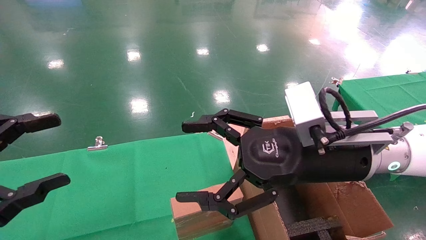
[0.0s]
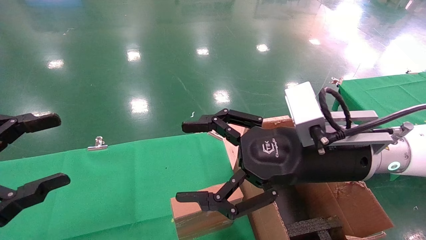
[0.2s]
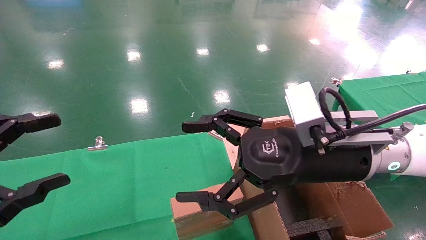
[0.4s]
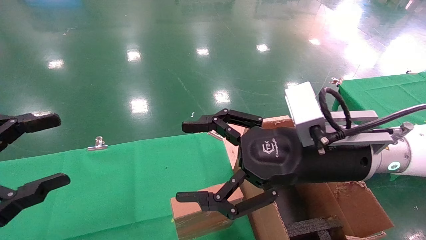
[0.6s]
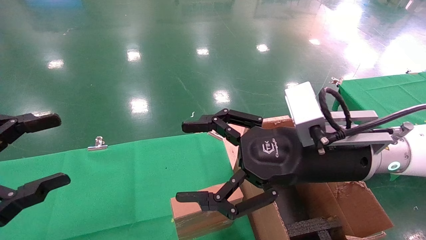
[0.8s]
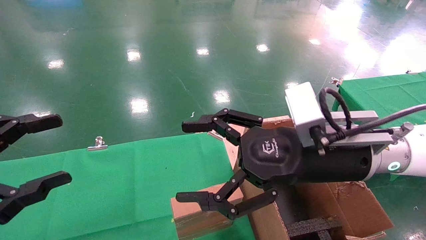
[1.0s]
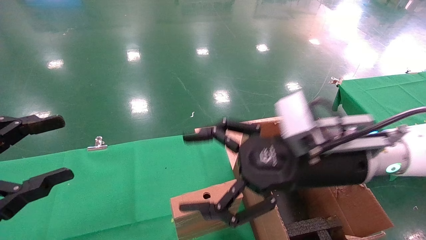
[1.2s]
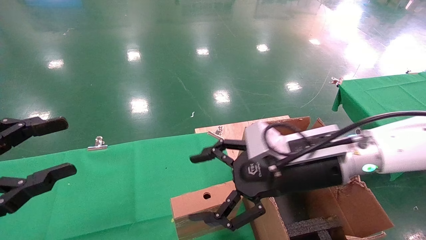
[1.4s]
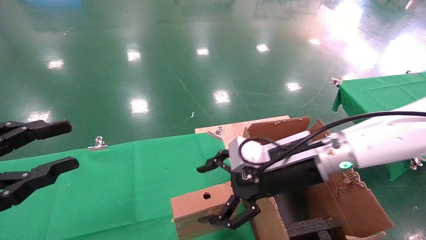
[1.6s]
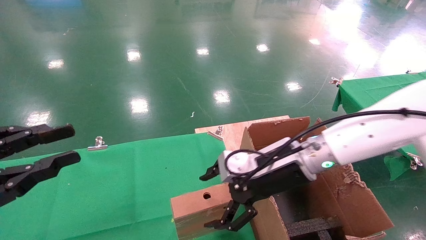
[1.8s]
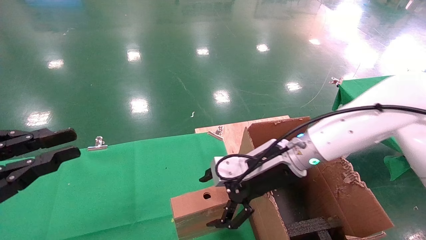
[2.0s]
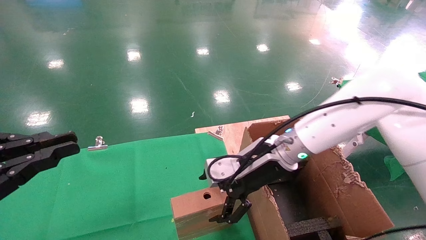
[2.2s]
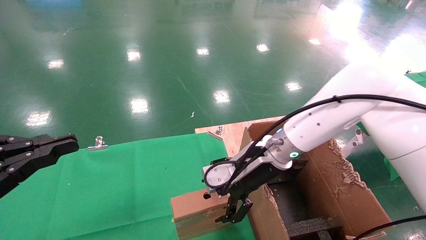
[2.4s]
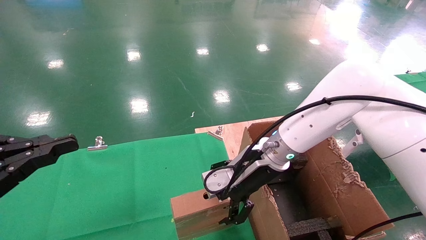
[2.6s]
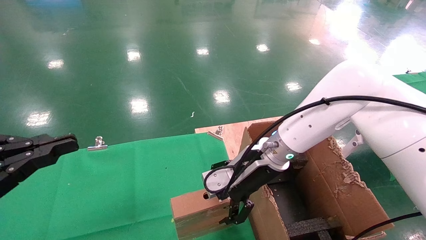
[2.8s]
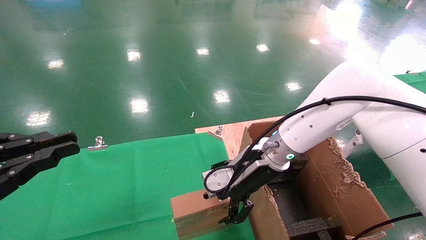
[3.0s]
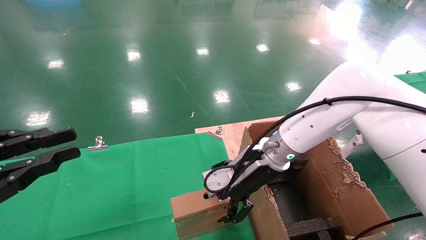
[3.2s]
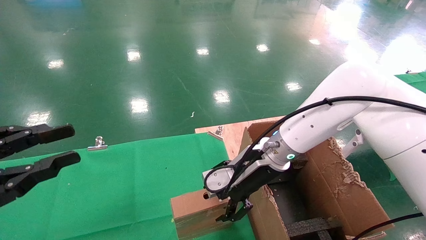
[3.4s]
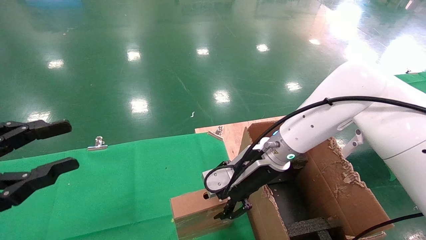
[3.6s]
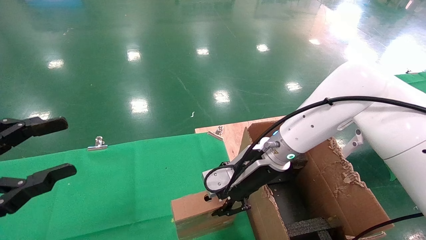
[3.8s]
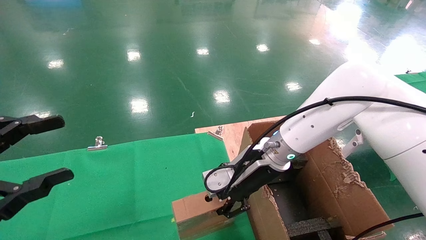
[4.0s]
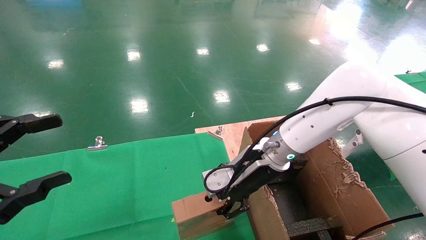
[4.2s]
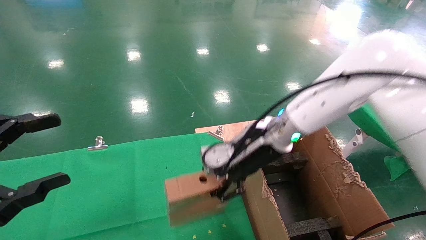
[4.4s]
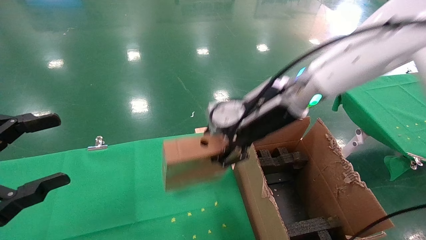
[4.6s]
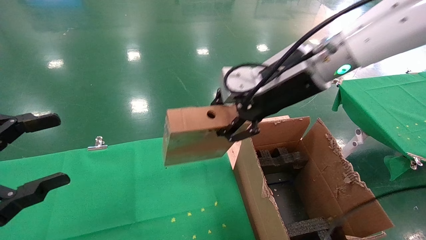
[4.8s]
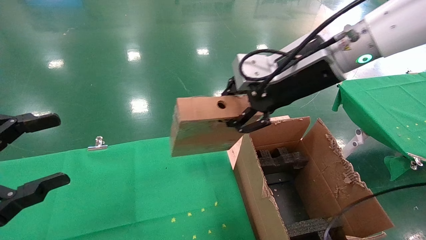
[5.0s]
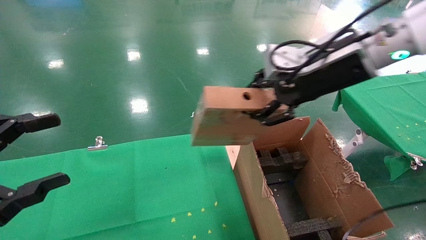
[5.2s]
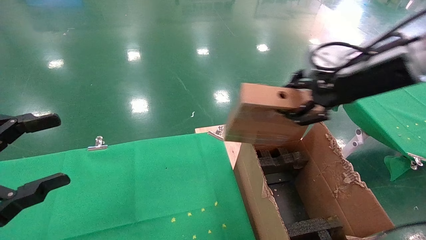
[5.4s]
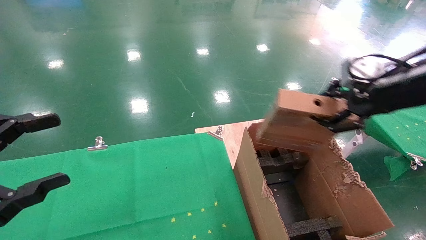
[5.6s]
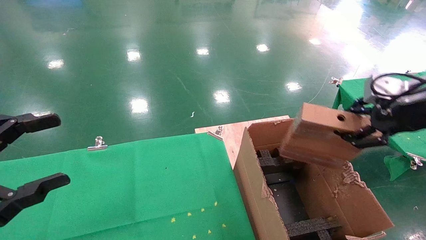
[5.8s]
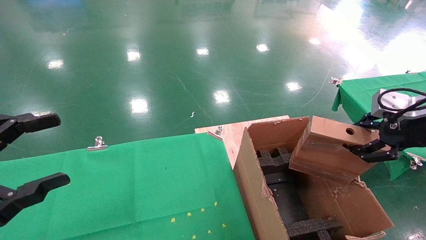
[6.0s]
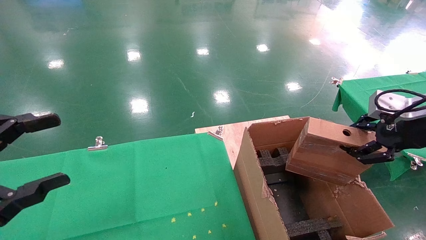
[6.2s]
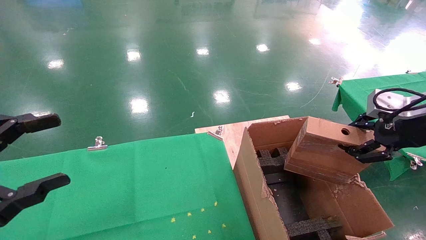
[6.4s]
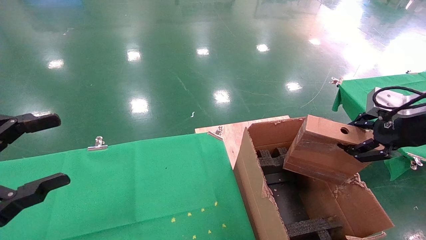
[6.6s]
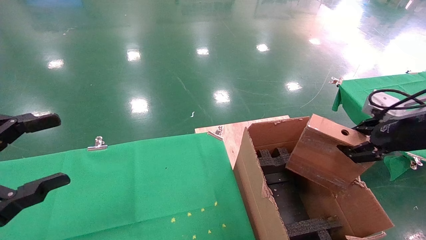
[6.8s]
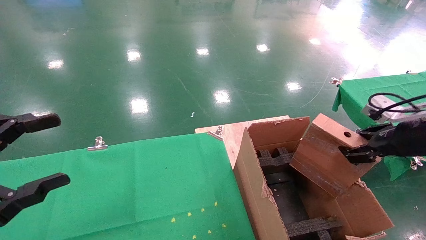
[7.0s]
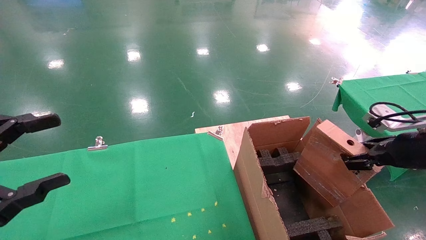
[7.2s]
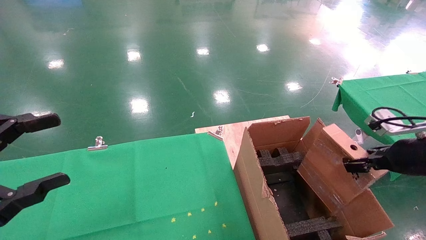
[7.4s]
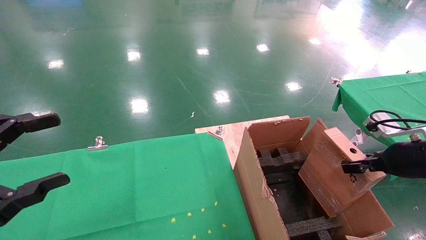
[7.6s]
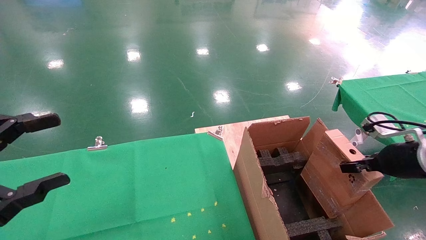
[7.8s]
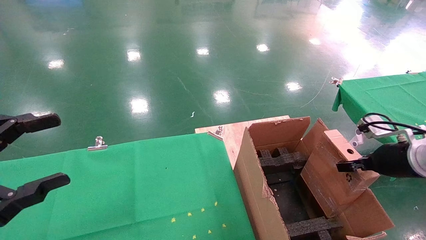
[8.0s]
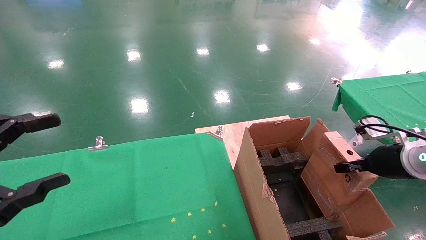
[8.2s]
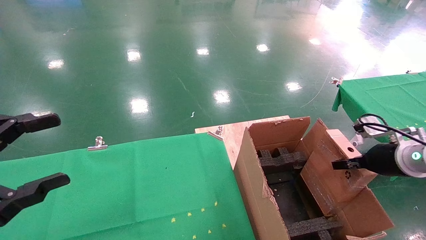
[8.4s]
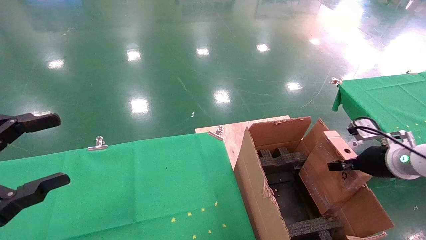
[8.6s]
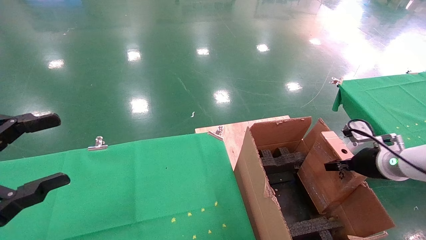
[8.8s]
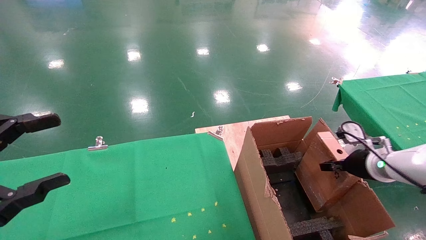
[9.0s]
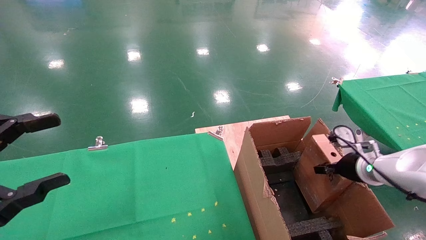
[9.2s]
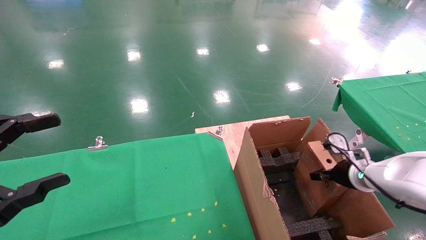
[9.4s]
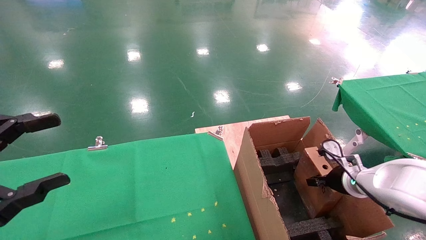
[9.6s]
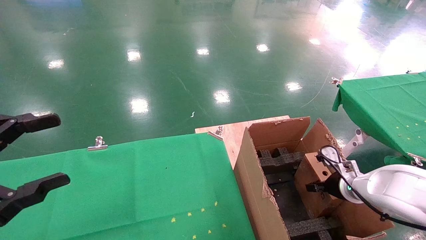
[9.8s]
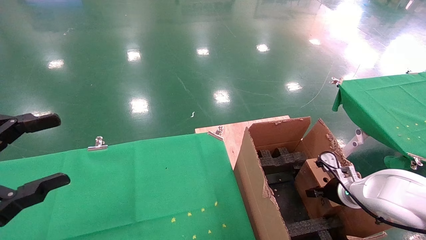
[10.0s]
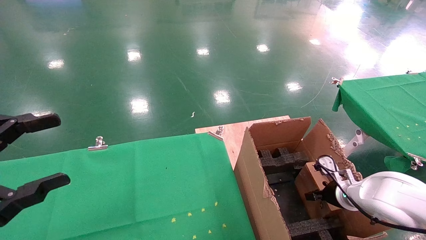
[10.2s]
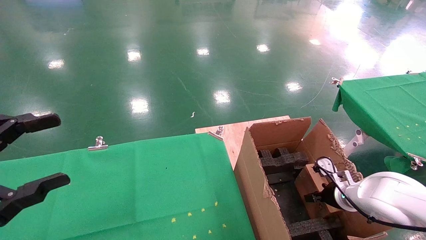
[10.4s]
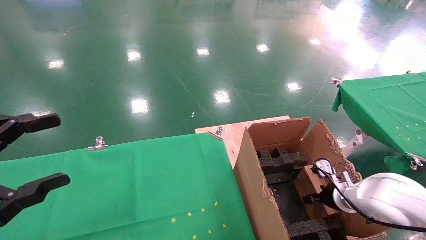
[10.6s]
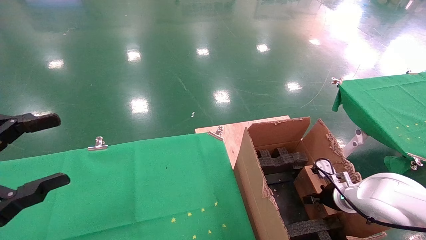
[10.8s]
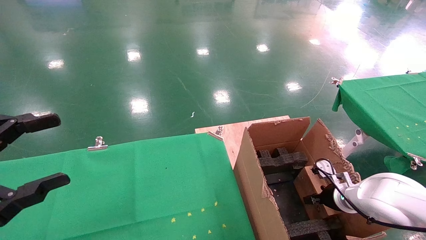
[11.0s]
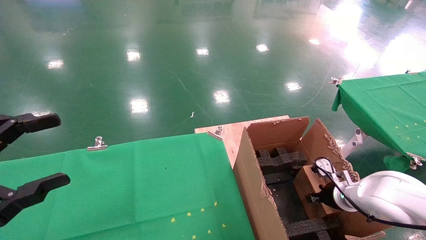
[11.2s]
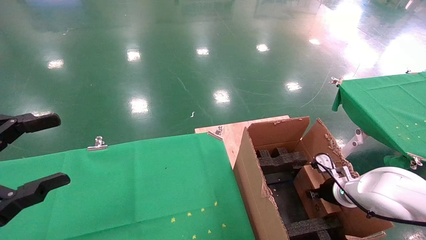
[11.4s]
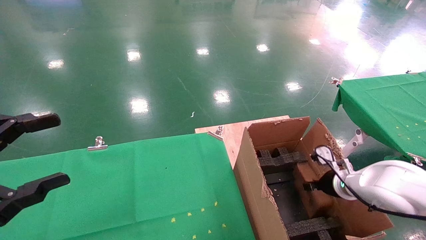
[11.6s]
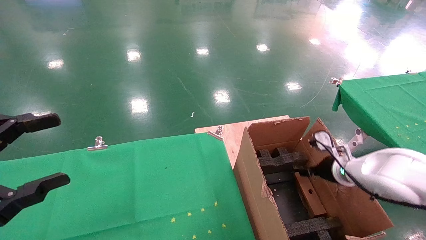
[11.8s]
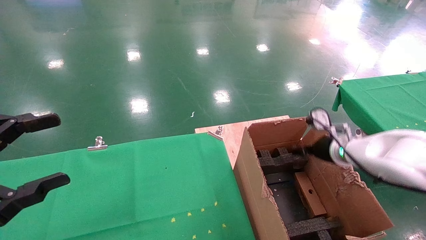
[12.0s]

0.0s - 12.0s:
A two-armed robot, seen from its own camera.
Task of the whole recording: using a robotic arm to pick up a cardboard box and palace it the carton.
Step, 1.0s - 4.0s: Pick up the mouse and the power cord paper box.
Step, 4.2s - 12.0s: Place the mouse and the power cord paper box into the container.
0.0s - 1.6s: The left gripper closes. The right gripper is displaced forward by about 5 cm.
1.6s - 3.0s: The left gripper closes up; the right gripper heads forward, covering some 5 cm.
3.0s - 4.4s: The right gripper is displaced upward by approximately 5 cm, and closes its fingers; the left gripper opens its fingers.
4.4s - 6.0s: The right gripper moves to the right and backward, about 30 cm.
6.0s - 7.6s: The right gripper shifts about 10 cm downward.
7.6s - 9.0s: The right gripper shifts roughly 10 cm forward and downward.
9.0s - 10.4s: The right gripper moves downward, approximately 10 cm.
10.4s - 12.0s: The right gripper heads upward, covering roughly 15 cm, and opens.

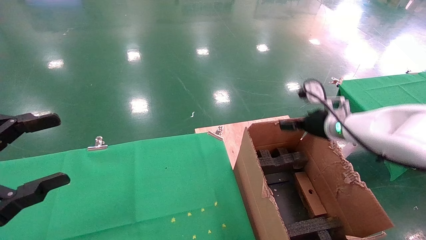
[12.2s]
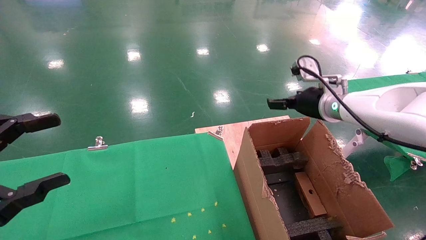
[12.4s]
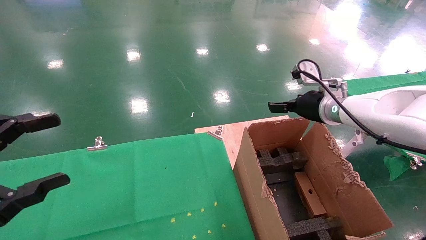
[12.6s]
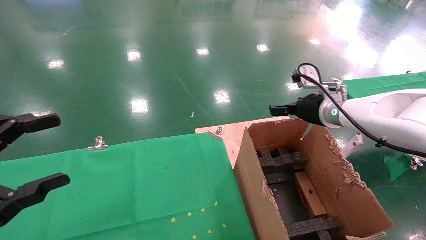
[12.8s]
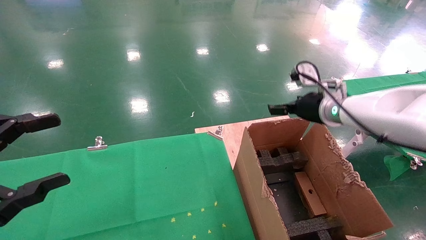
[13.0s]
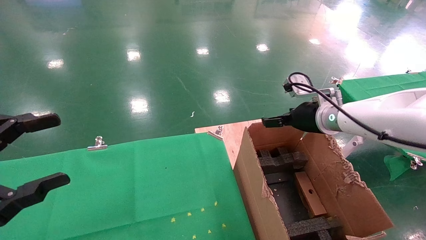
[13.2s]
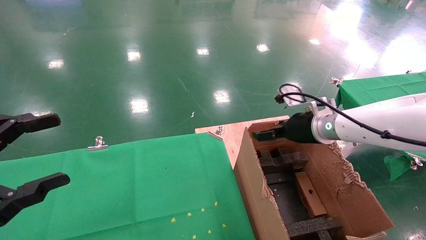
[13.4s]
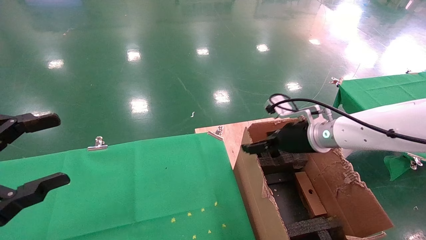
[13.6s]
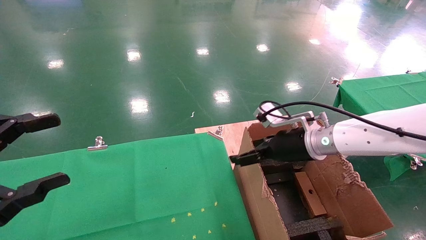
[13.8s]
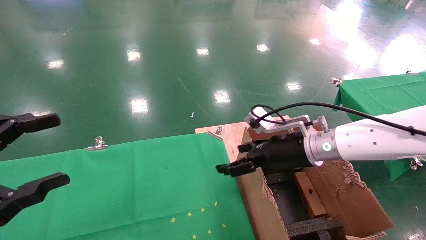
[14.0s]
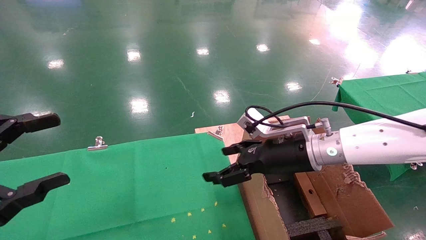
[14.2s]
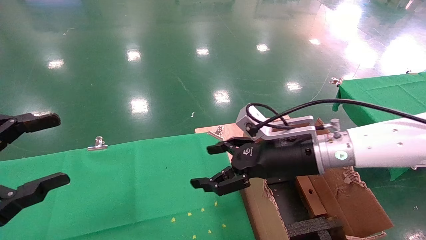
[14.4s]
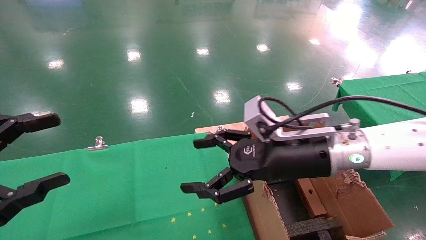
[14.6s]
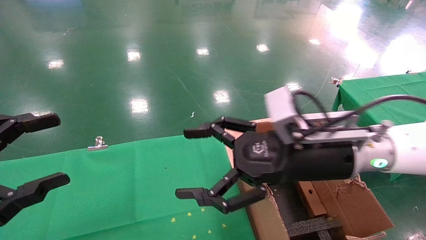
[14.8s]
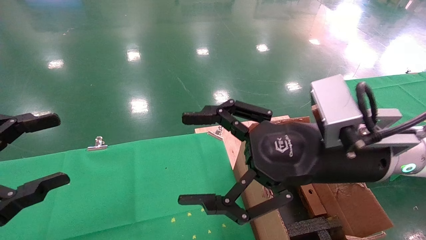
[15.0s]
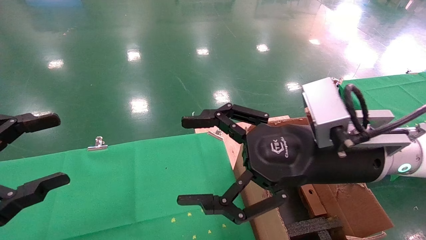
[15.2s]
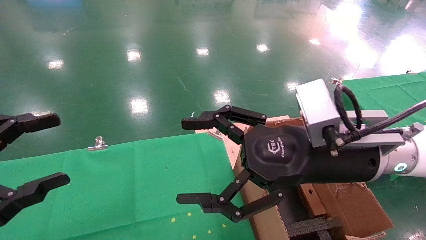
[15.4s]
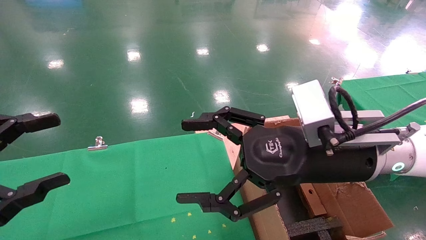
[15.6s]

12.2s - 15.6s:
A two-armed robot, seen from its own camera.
Task of the whole recording: using a robotic arm to pick up a cardboard box and palace it the carton.
12.2s - 13.8s: The right gripper goes some 10 cm to the left.
13.8s - 15.6s: The right gripper is displaced backward and upward by approximately 15 cm.

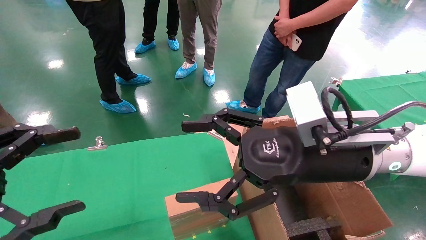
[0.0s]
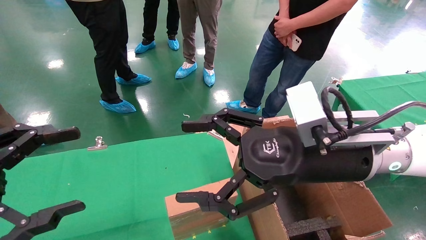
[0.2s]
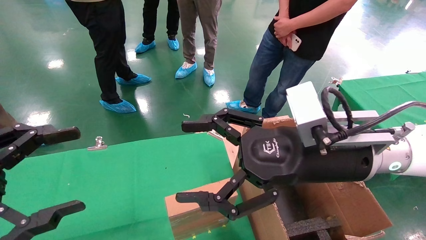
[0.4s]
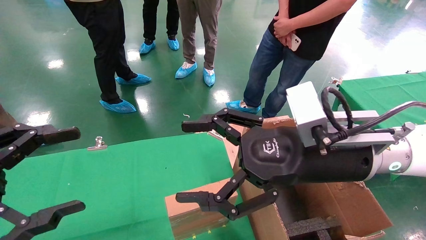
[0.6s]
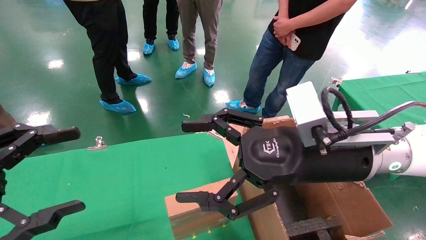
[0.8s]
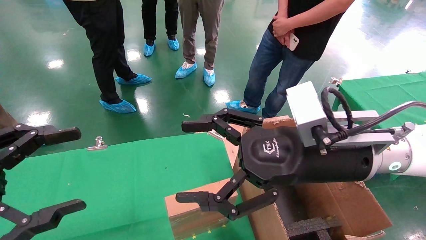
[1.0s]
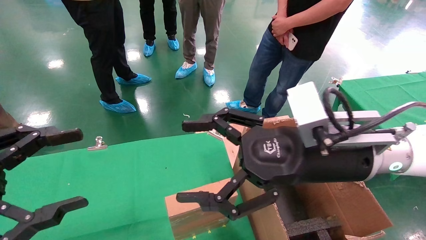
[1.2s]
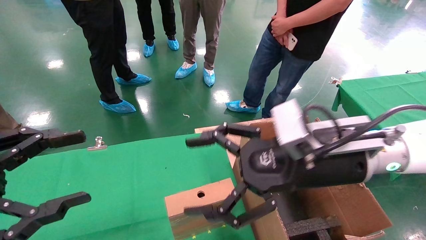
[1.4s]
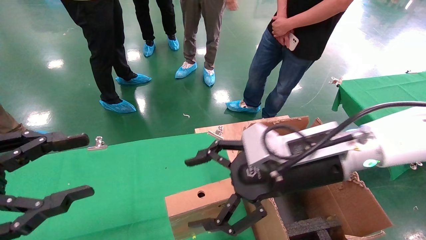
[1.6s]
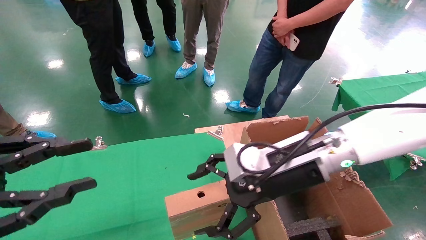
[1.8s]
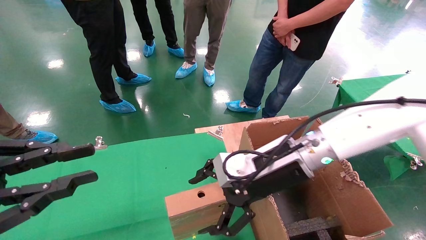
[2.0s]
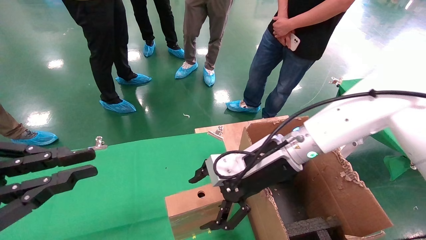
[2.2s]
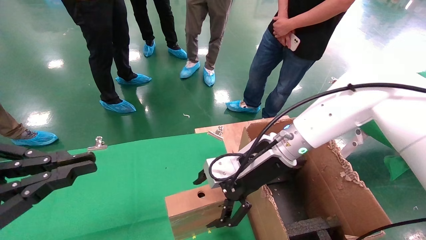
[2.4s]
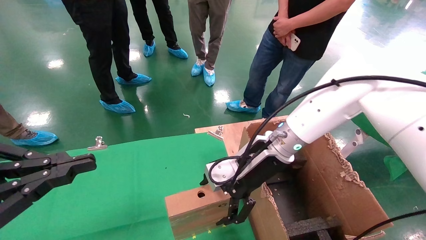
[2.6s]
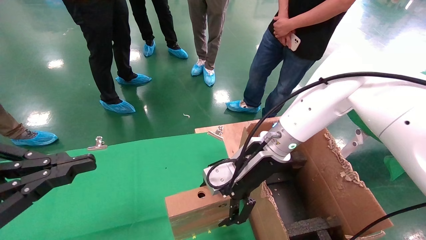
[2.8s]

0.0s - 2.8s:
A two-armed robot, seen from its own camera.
Task of the whole recording: using a robotic arm to pick up a cardboard box and palace it the carton.
1.4s - 2.8s: The left gripper closes its fingers. Meanwhile the right gripper heads forward, covering approximately 10 cm.
